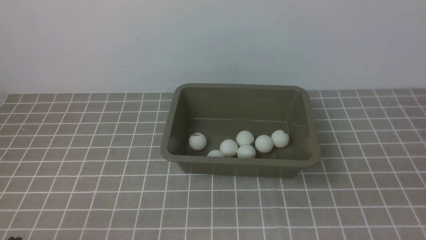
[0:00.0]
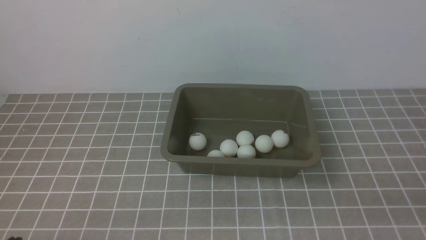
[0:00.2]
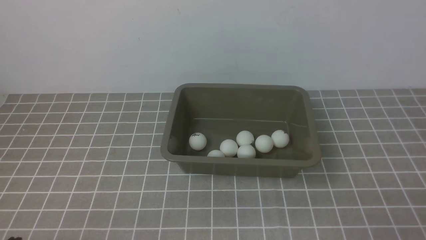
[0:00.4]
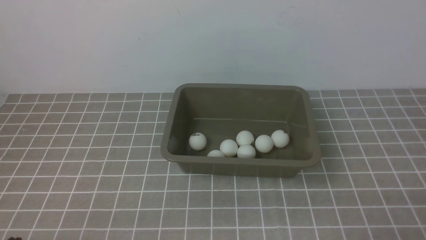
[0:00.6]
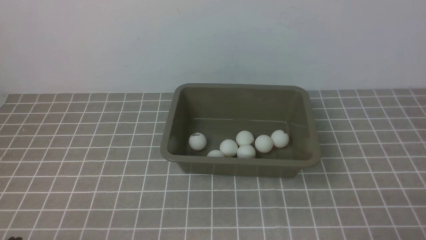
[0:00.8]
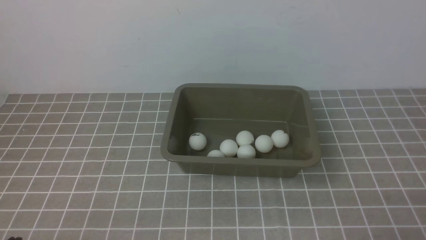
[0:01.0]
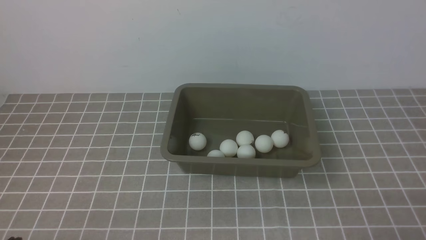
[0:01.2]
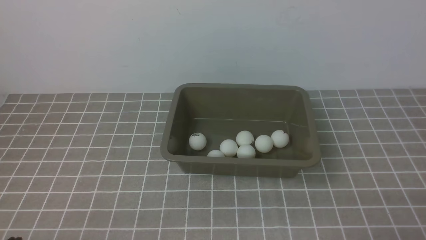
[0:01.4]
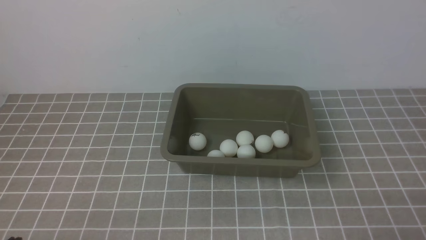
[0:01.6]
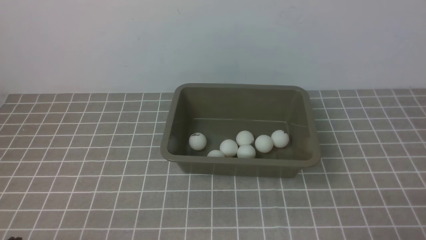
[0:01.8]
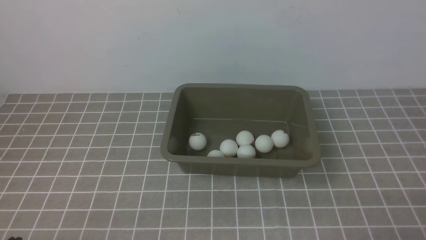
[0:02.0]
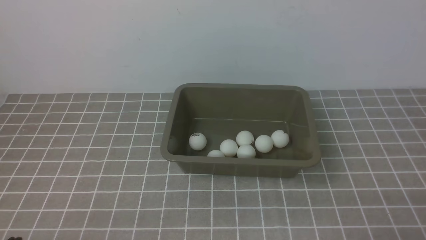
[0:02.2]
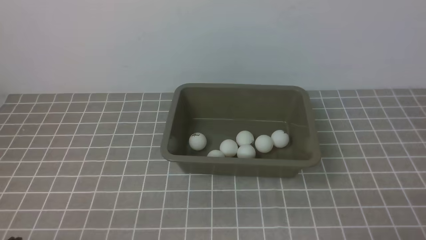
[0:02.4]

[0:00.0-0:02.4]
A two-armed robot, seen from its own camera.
0:01.2 to 0:02.4: The two grippers keep their place.
